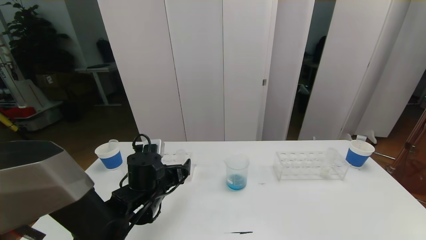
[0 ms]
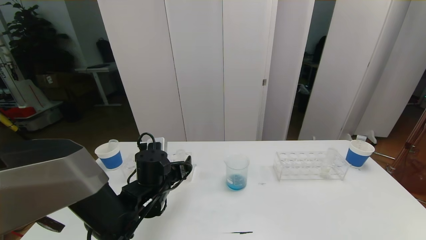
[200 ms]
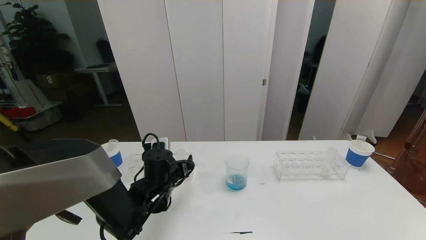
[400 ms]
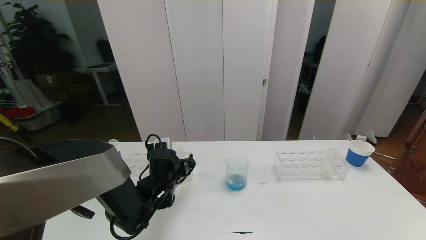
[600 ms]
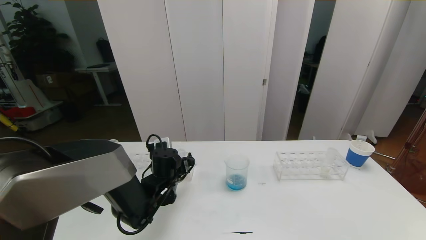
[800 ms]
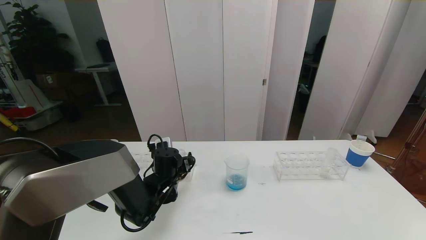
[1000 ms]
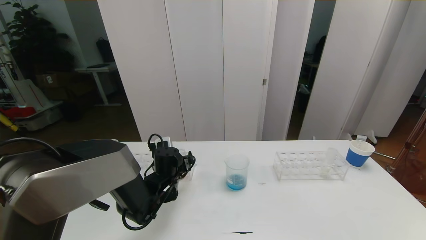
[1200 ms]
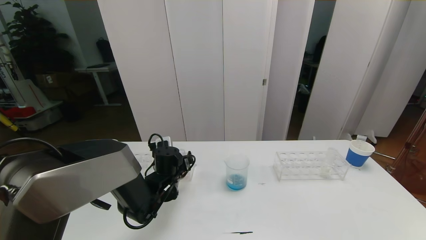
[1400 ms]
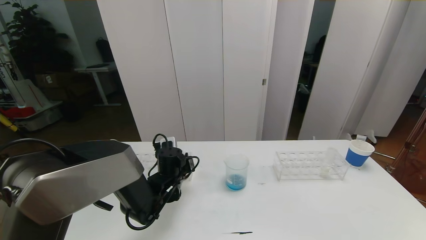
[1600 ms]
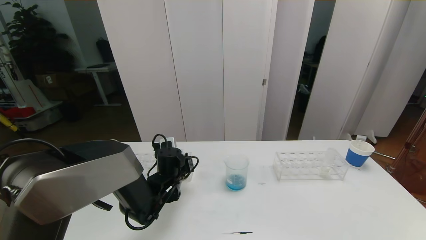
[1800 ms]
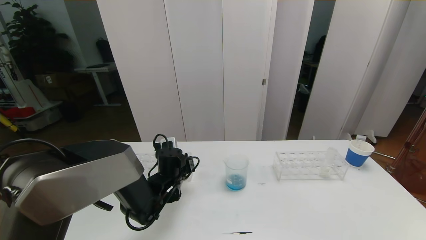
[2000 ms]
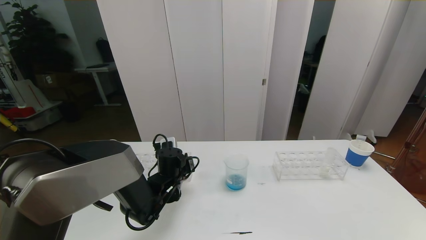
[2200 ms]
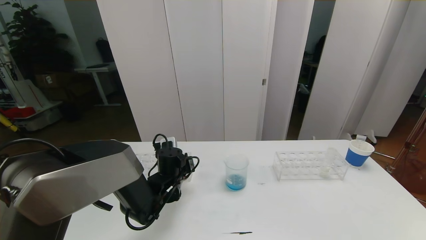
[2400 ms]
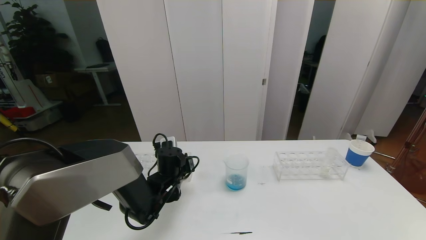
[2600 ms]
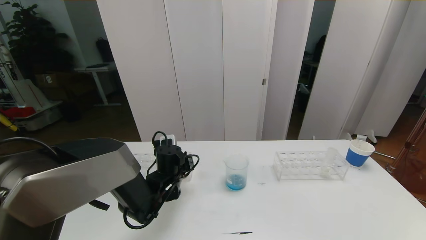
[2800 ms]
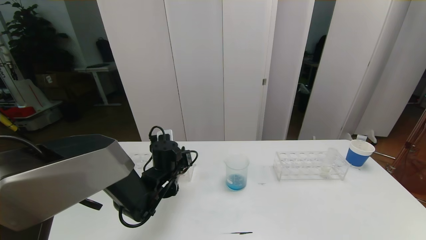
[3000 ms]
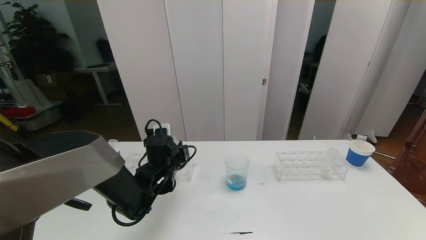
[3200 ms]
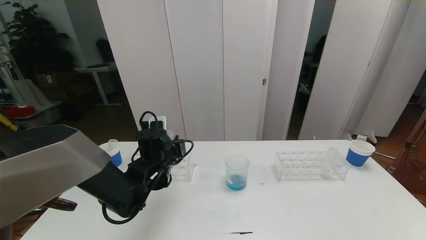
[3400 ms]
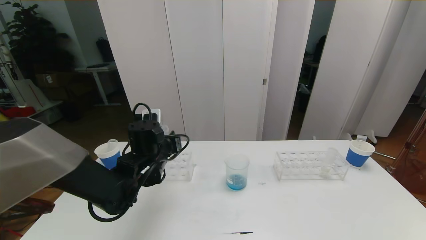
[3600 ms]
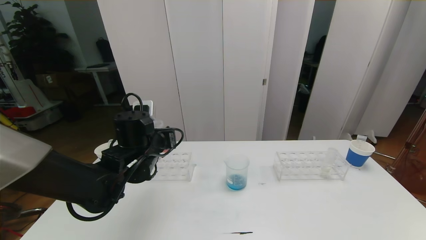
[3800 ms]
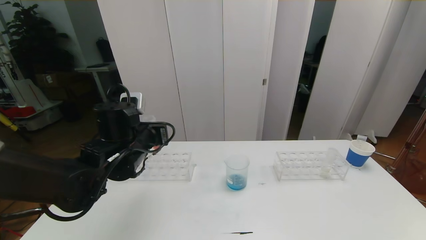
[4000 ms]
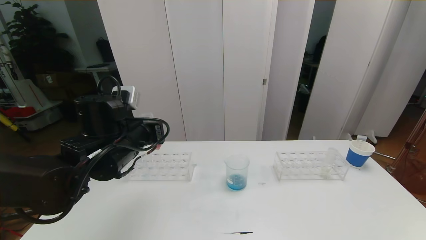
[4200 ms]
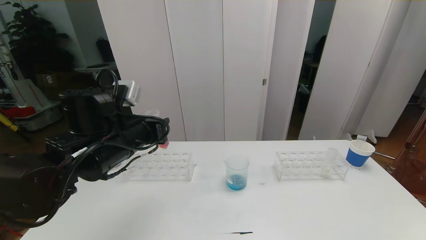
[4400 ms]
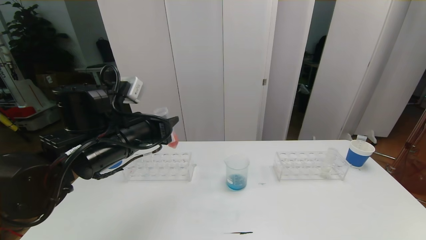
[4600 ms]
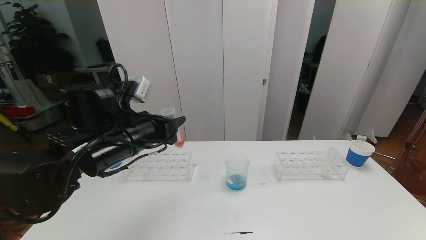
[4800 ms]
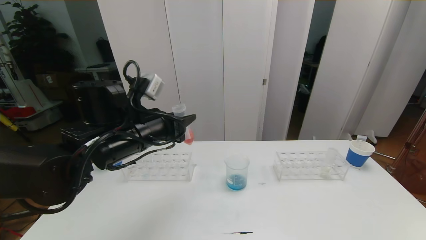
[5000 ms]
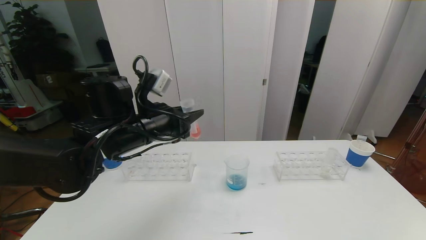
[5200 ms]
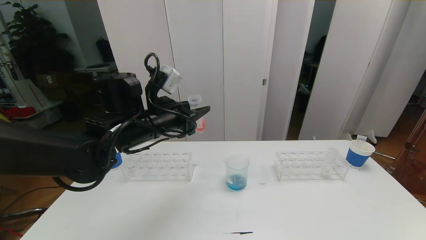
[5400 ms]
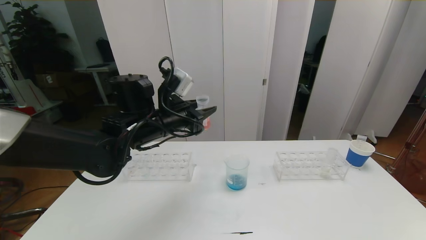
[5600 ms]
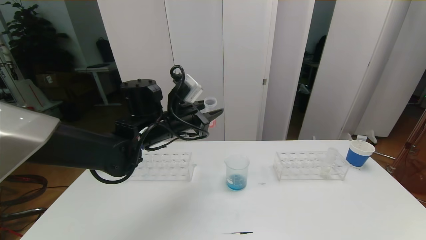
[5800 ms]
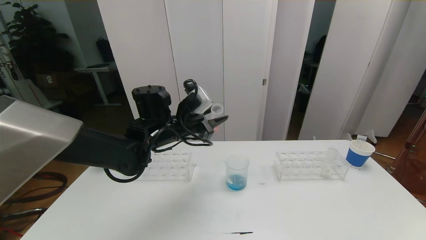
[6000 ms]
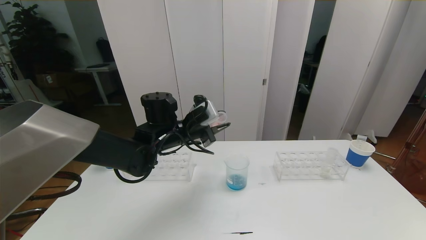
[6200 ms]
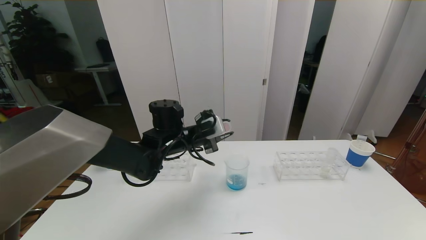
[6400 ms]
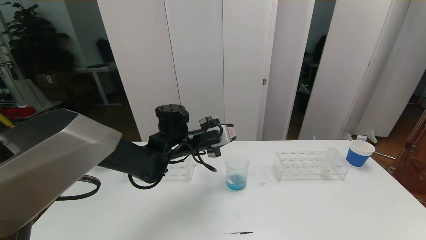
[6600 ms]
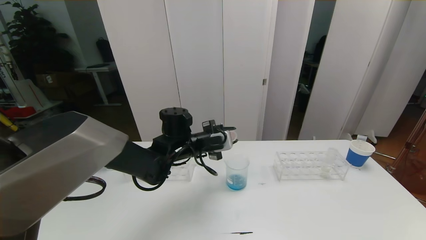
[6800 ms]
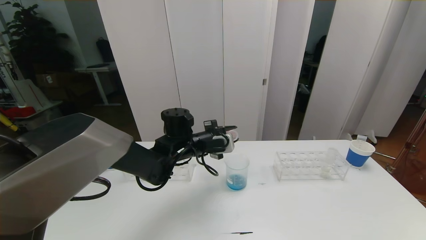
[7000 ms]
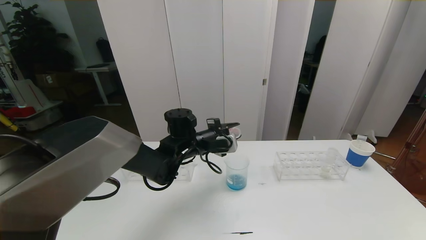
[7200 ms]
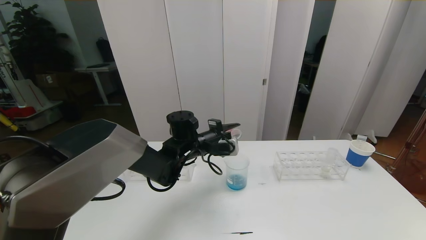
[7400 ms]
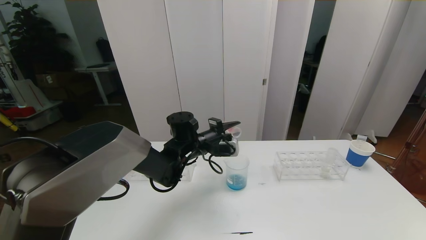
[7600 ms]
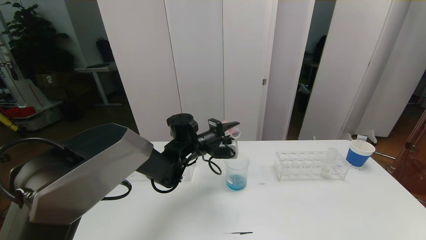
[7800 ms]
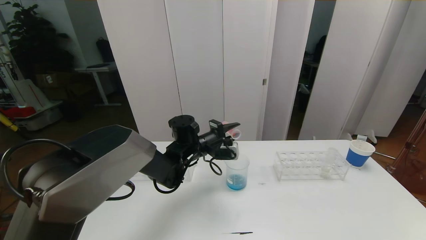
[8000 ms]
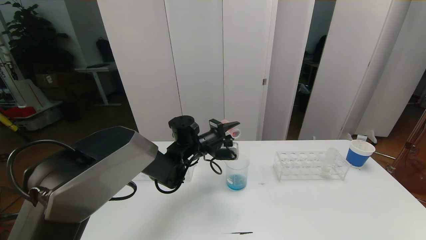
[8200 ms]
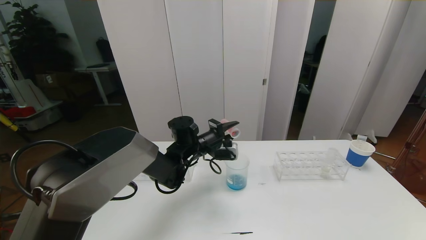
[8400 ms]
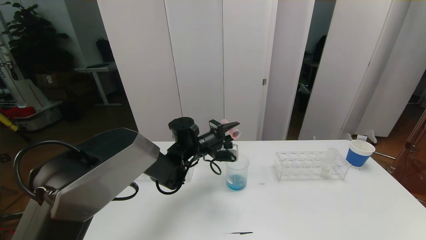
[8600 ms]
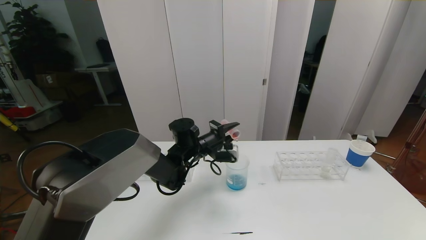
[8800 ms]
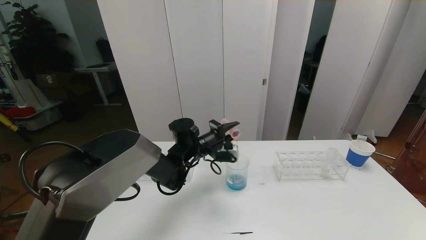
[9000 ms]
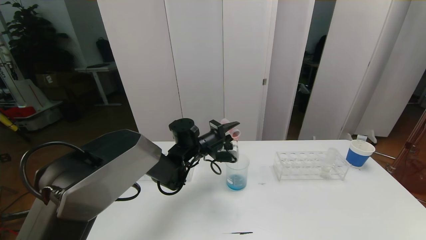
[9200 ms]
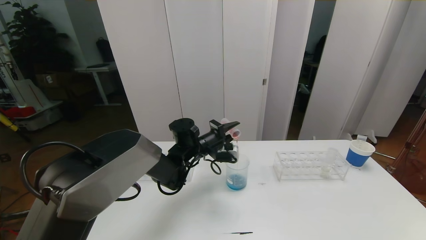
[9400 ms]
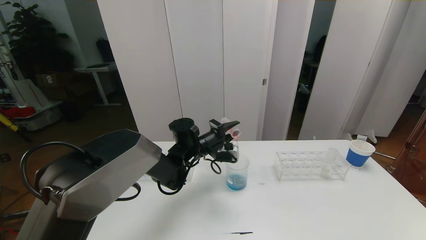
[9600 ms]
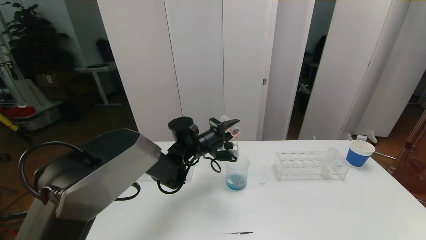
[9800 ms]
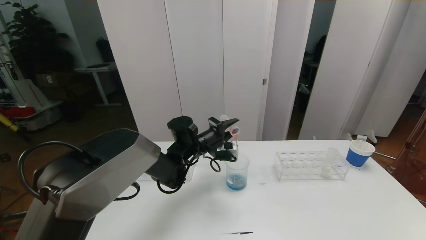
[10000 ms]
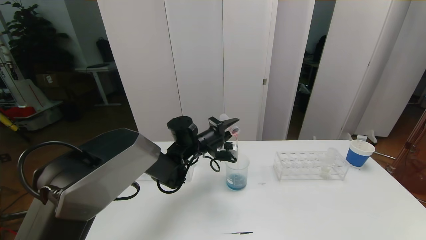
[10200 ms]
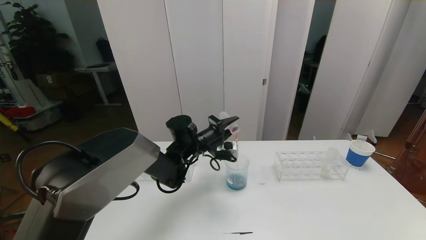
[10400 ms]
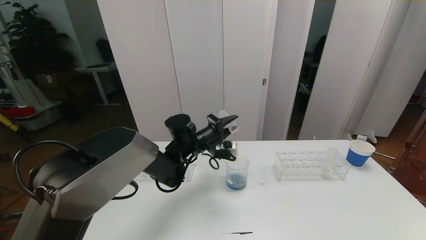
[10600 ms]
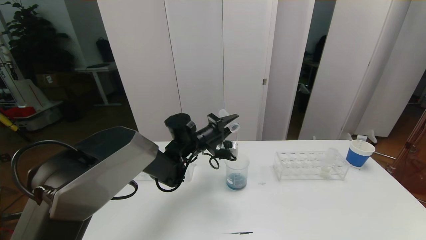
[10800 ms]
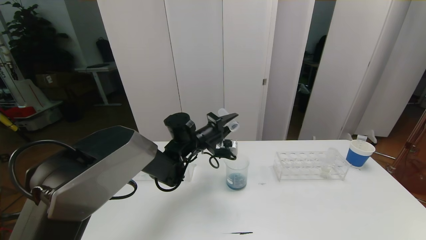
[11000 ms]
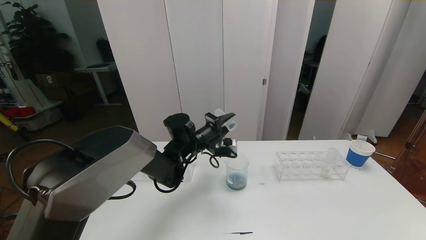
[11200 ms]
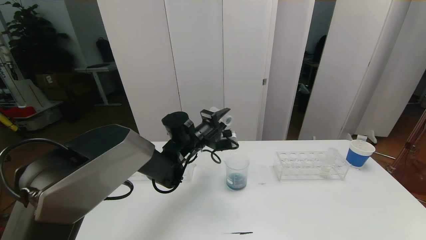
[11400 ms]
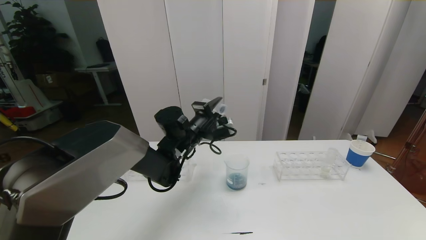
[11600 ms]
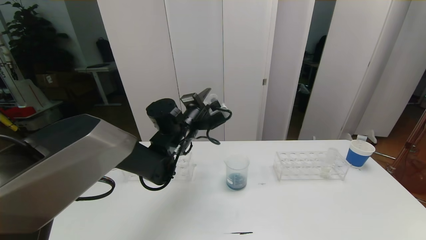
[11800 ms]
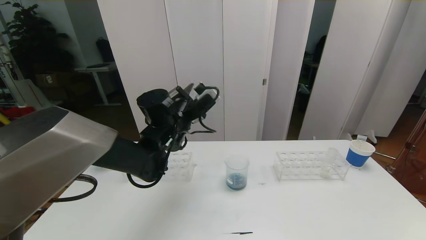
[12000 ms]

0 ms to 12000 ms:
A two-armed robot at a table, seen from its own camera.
Task of the whole recording: pick up the test tube with red pigment the test tube with blue pigment and the test tube with white pigment by grippers and pour them into the beaker.
0 ms to 1600 ms: The left gripper heads forward, covering approximately 10 cm, and closes.
1600 ms to 3000 ms: The grippers make only small movements.
3000 ms to 4400 ms: The left gripper heads upward and backward, covering about 15 cm.
4400 ms to 6000 ms: The left gripper goes roughly 10 cm forward and to the right.
6000 ms to 7600 ms: The left gripper shifts roughly 5 cm downward.
7600 ms to 10400 ms: The grippers make only small movements.
10400 ms to 12000 ms: The left gripper heads upward, covering some 10 cm.

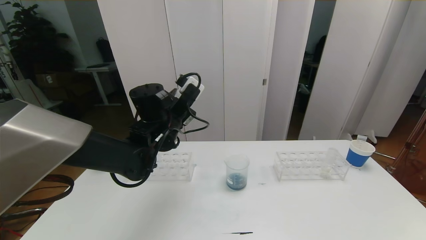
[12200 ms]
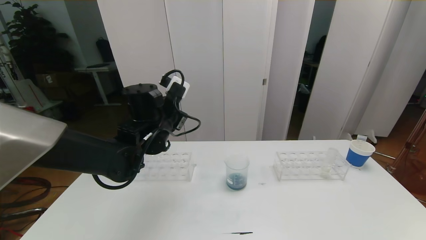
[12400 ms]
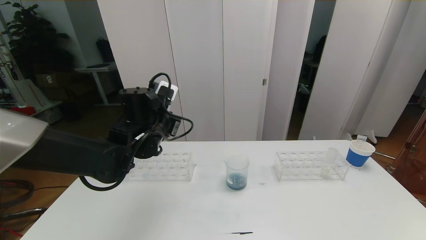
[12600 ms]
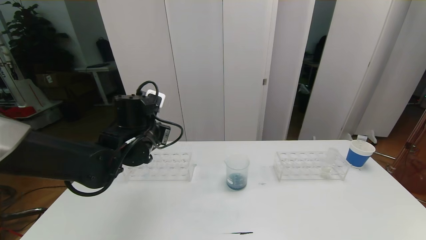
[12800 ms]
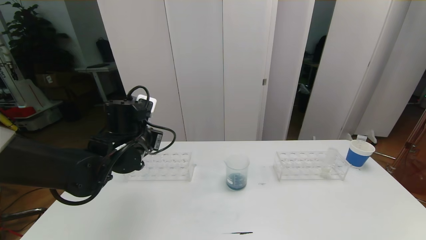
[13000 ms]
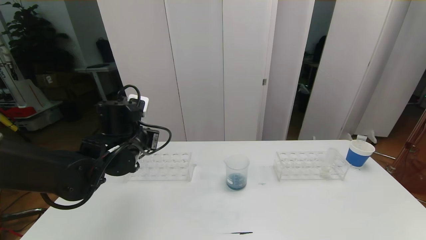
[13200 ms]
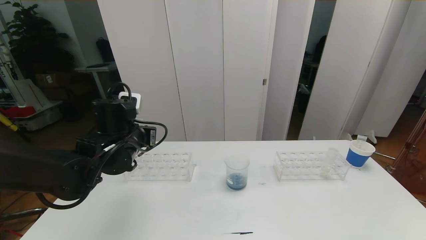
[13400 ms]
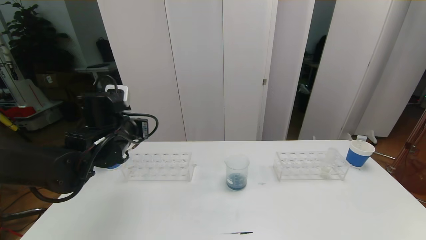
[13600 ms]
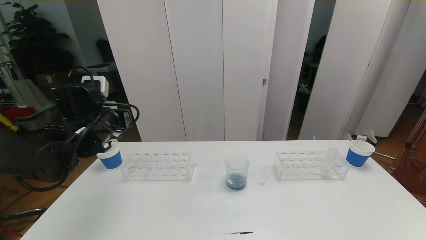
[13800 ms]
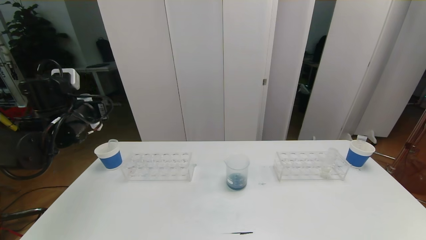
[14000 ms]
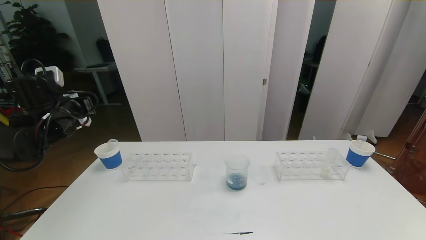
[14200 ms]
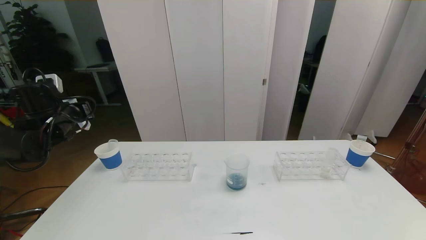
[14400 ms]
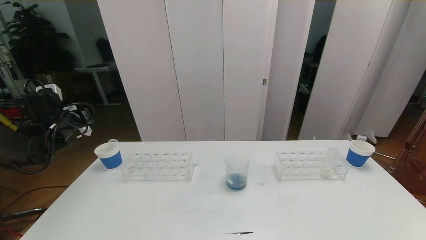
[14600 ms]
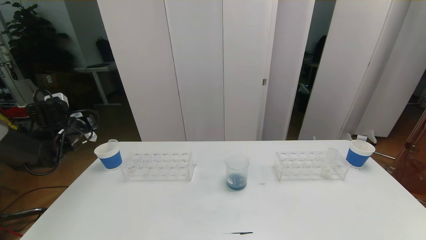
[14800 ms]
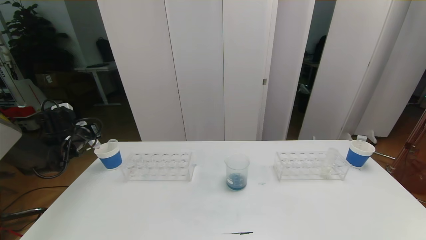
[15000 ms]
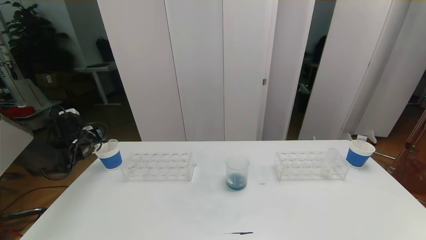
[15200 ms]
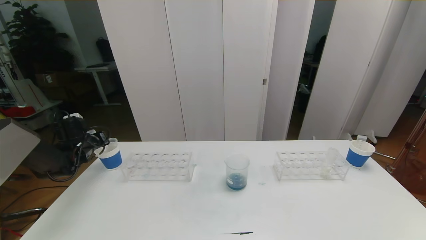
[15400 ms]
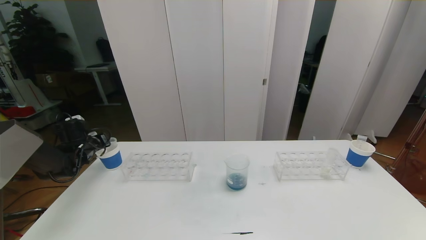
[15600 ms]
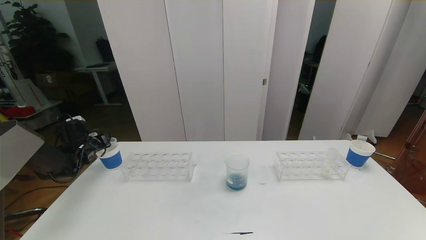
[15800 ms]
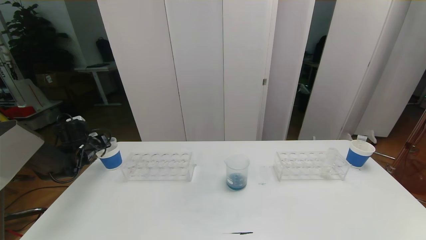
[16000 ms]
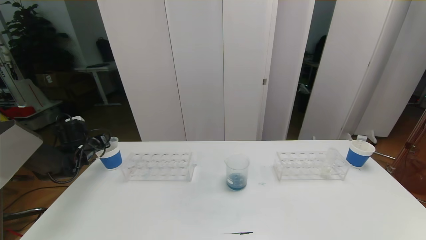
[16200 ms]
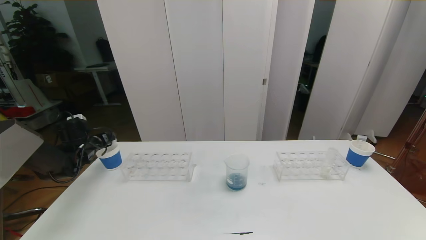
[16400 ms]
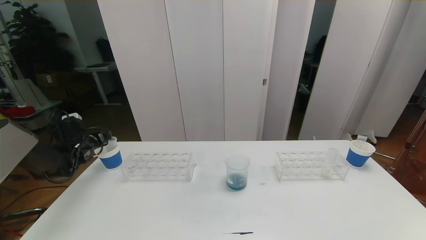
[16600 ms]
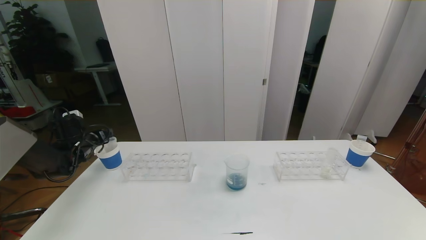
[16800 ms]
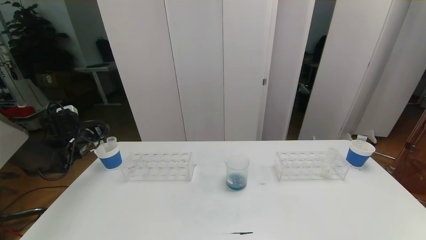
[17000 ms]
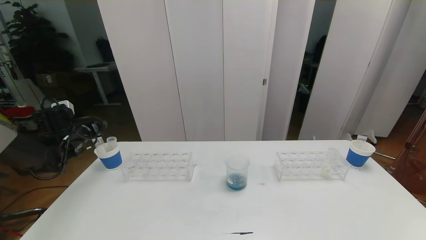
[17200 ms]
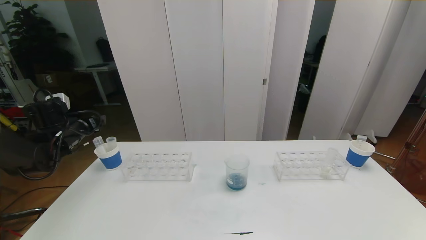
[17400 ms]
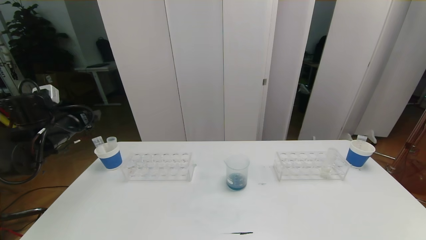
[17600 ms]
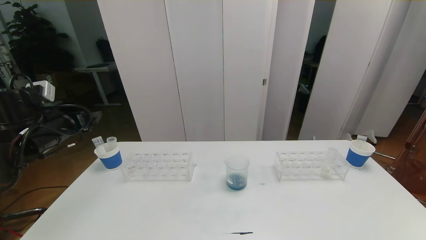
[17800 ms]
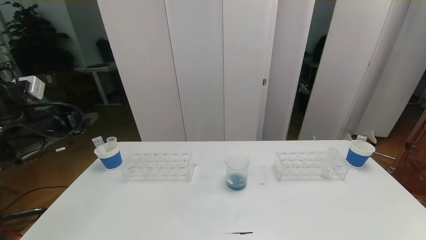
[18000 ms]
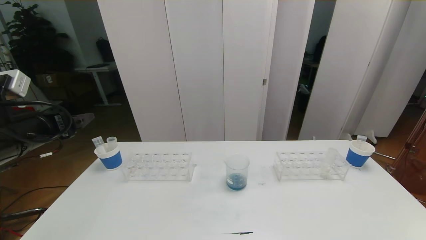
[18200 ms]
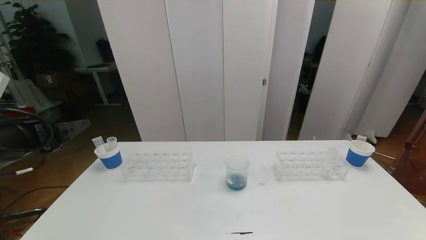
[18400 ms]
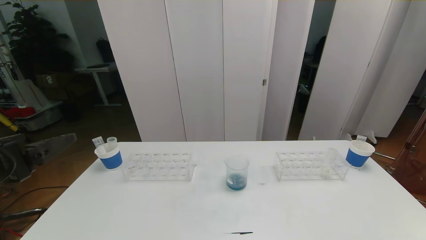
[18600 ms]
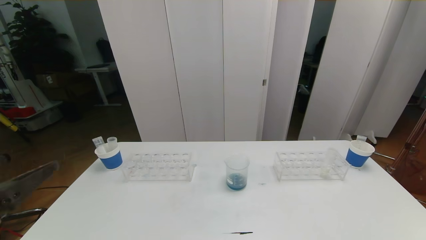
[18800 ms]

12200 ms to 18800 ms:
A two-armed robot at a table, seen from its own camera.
Task of the whole recording: pick up the test tube with red pigment the test tube with blue pigment and the test tube with white pigment by grippers and pour them into the beaker.
12200 ms to 13800 ms: The left gripper goes some 15 cm to the left.
13800 ms to 15400 ms: The left gripper shifts about 20 cm to the left, downward and forward.
15400 ms to 17200 ms: The left gripper goes some 5 cm upward, and opens.
17200 ms to 18800 ms: The left gripper moves backward, some 35 cm.
